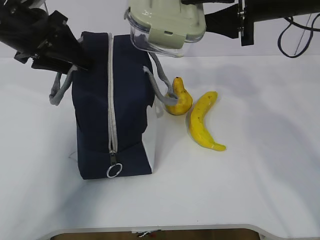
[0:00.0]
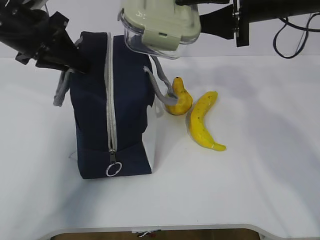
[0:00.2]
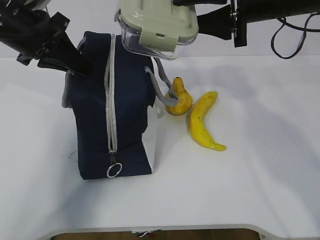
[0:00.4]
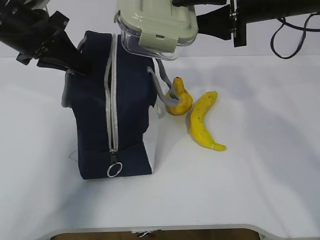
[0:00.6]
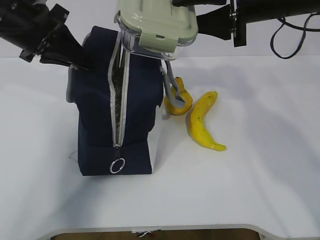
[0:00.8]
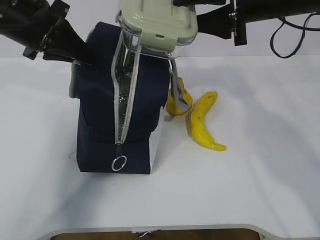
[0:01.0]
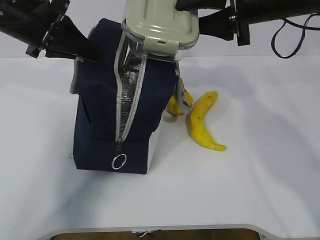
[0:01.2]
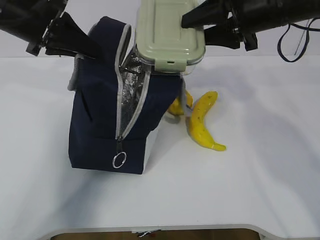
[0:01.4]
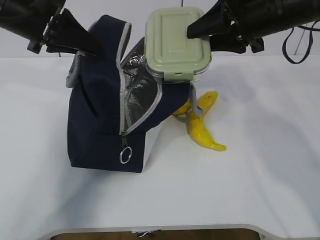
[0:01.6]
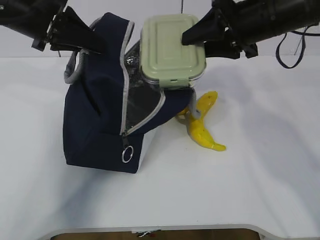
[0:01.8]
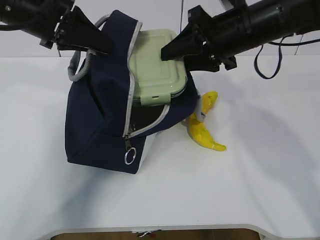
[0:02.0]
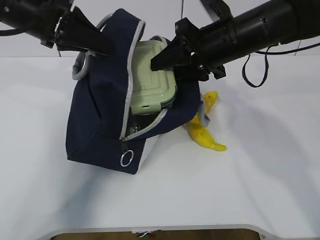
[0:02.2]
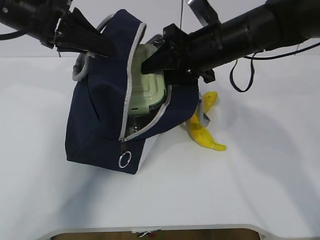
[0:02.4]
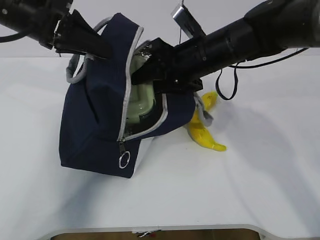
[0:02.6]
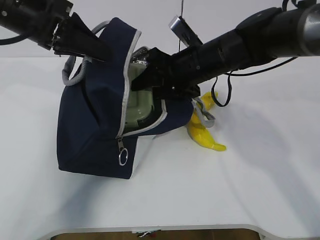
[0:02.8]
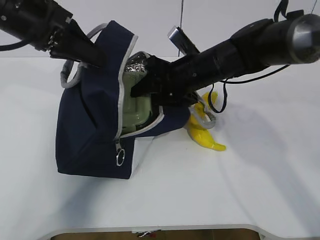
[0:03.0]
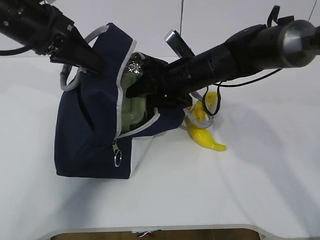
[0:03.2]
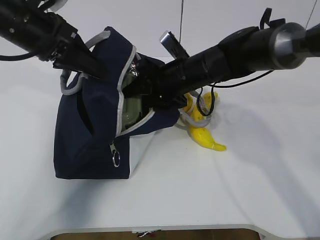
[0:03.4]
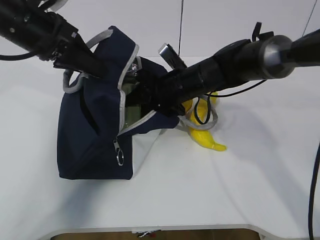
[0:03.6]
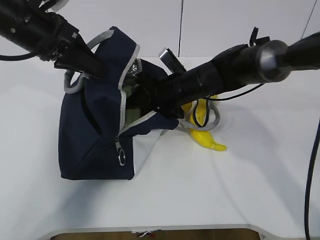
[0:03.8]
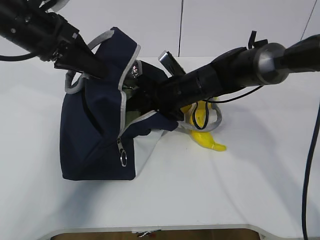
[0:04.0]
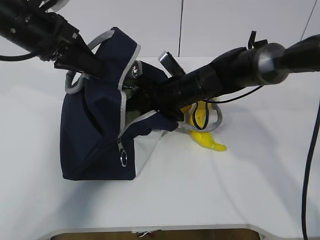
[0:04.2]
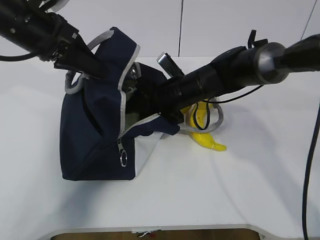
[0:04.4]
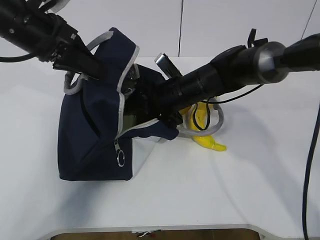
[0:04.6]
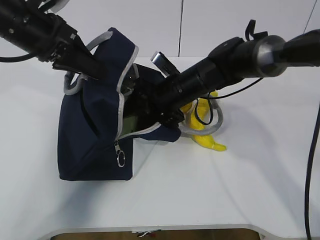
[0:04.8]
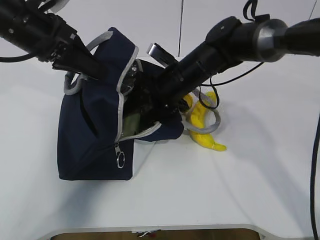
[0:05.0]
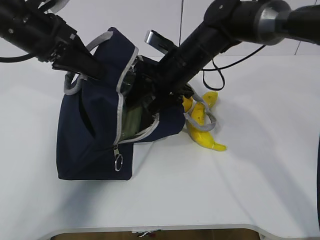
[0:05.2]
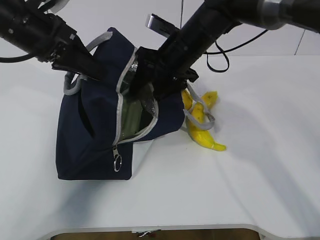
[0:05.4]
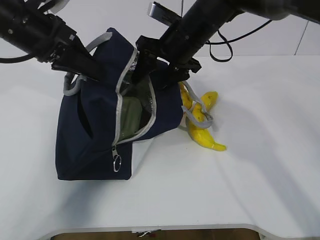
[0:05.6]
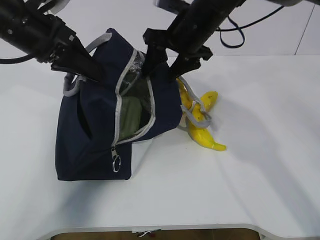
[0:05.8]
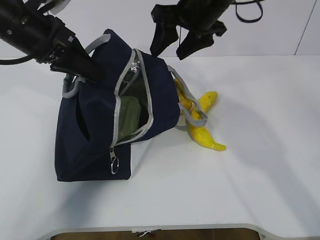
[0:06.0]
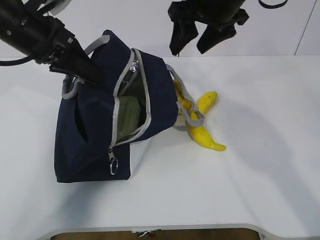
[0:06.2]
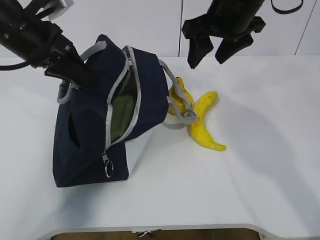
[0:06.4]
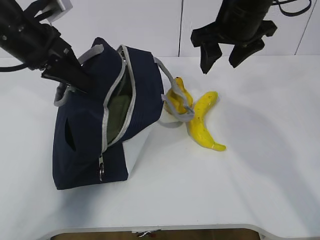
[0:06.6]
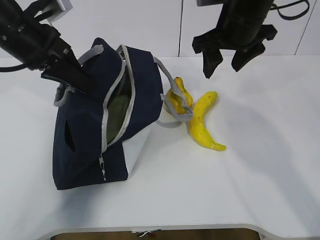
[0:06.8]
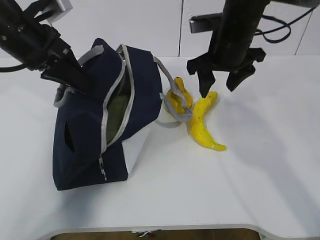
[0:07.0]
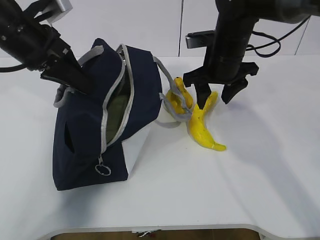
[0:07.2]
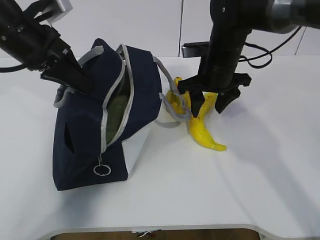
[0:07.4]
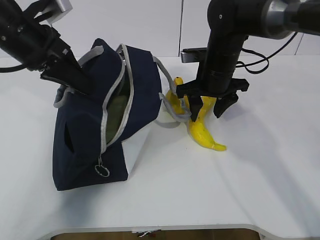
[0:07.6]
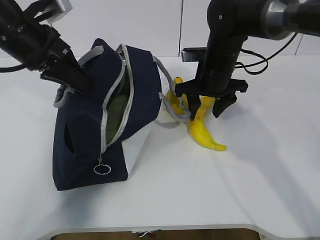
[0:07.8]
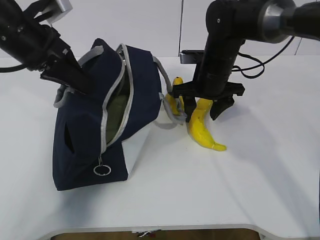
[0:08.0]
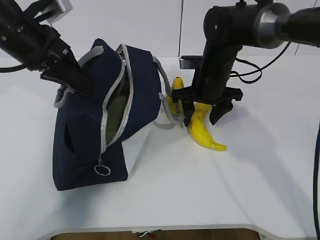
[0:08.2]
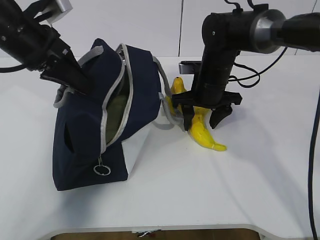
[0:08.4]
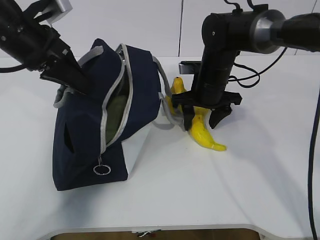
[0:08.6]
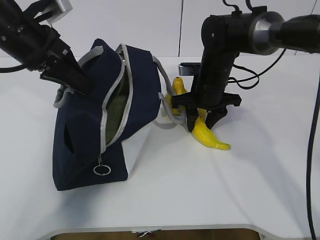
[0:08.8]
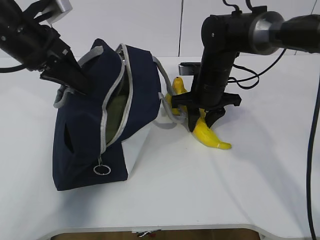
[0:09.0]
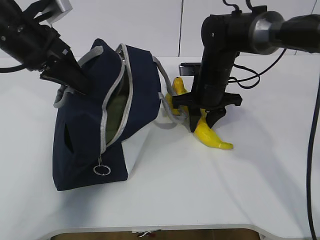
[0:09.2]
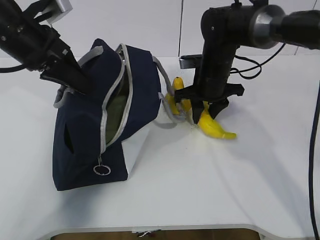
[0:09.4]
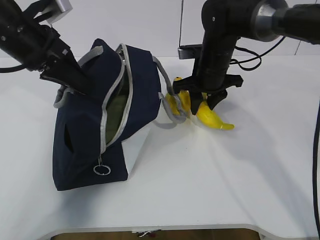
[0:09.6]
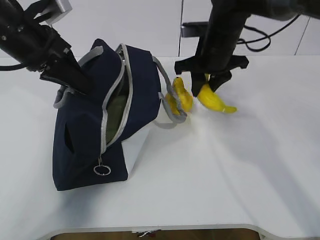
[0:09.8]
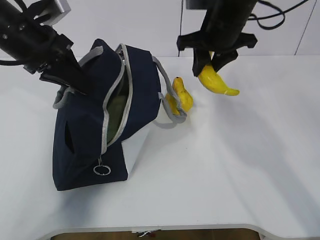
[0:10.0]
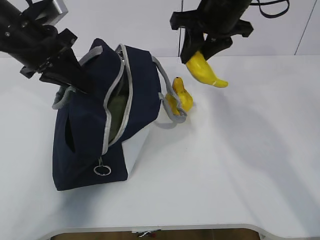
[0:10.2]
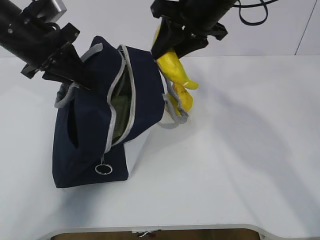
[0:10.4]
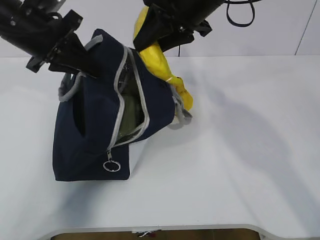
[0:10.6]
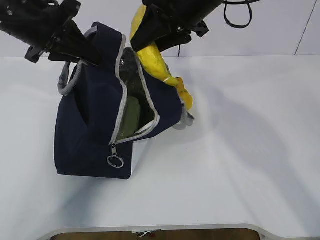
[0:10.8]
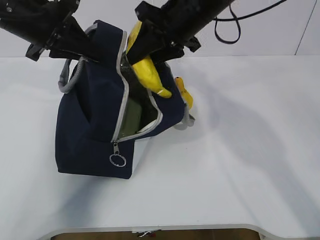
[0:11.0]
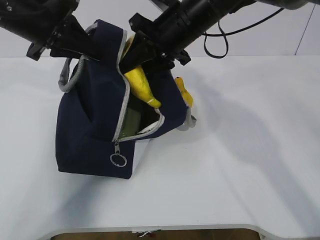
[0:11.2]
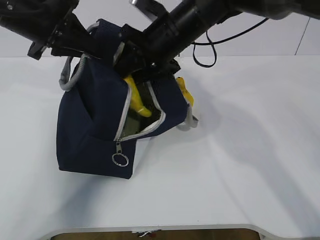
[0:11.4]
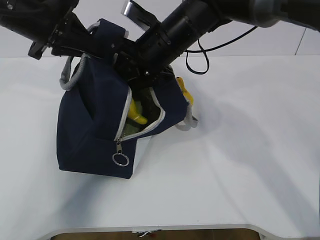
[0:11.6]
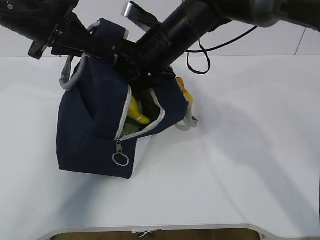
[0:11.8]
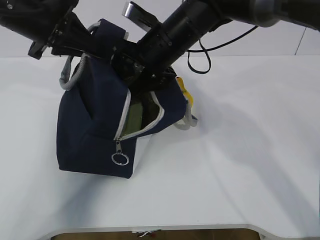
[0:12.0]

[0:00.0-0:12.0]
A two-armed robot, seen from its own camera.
Step, 0:01.6 to 0:04.8: Grab the banana with your right hand.
Step, 0:05.0 to 0:07.2: Place it into the bag with your right hand.
Step, 0:07.4 to 0:10.2: Grab the pear with your right hand.
0:00.0 to 0:01.6: The left gripper closes its fingers.
0:01.6 to 0:03.0: The right gripper travels downward and to the left by roughly 15 cm.
0:03.0 to 0:04.4: The right gripper moves downward, some 5 cm.
0:04.4 to 0:06.0: The right gripper goes approximately 15 cm upward.
0:06.0 to 0:07.6: The right gripper travels downward by approximately 10 cm.
0:07.6 to 0:09.0: The grippers make only small movements.
0:09.0 to 0:10.4: The right gripper heads upward, covering approximately 15 cm.
0:10.4 to 0:12.0: The right gripper is displaced downward and to the left by approximately 10 cm, and opens.

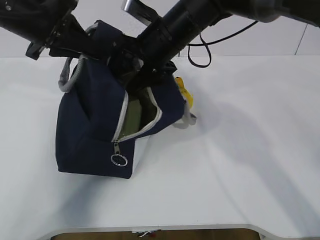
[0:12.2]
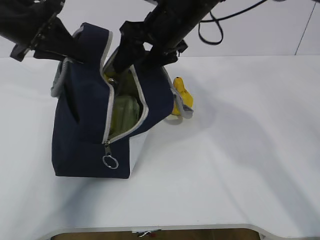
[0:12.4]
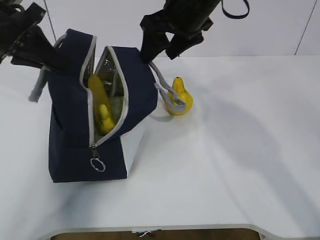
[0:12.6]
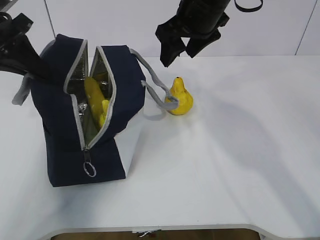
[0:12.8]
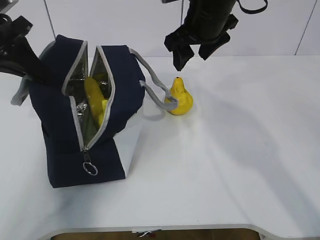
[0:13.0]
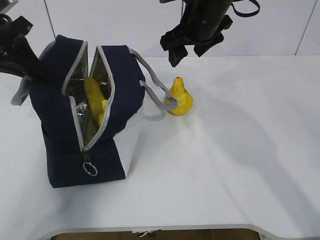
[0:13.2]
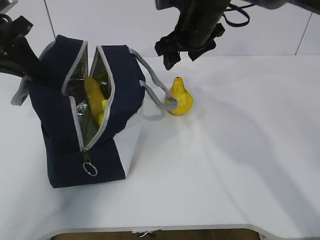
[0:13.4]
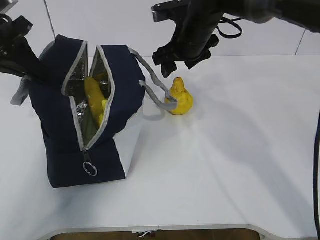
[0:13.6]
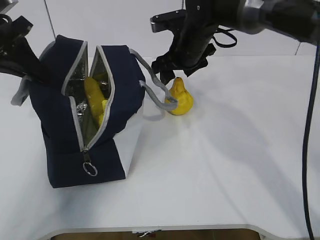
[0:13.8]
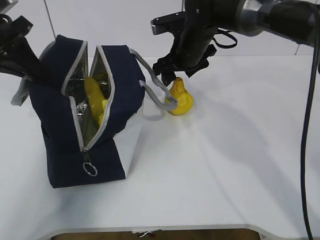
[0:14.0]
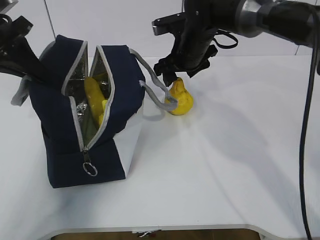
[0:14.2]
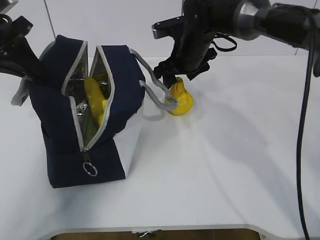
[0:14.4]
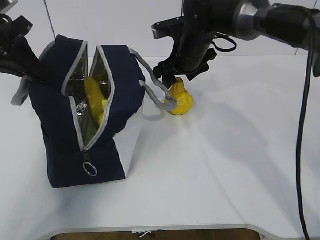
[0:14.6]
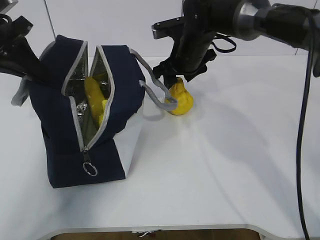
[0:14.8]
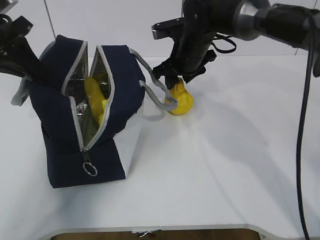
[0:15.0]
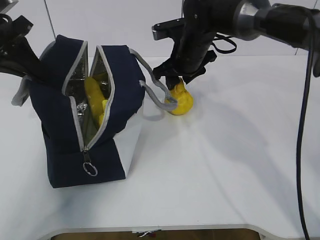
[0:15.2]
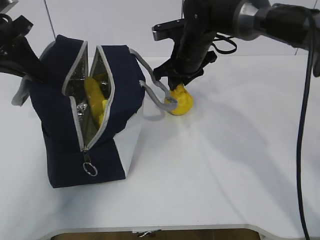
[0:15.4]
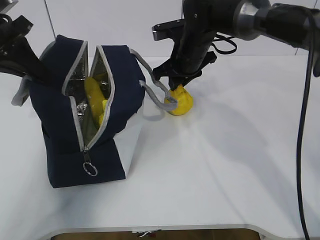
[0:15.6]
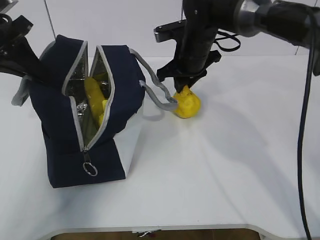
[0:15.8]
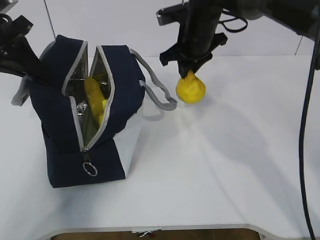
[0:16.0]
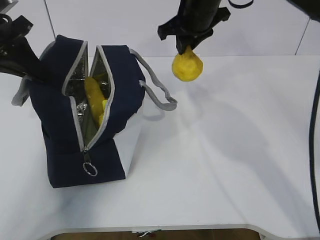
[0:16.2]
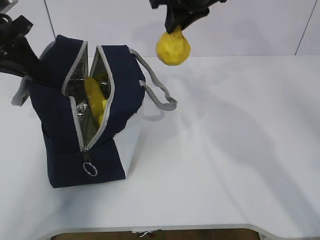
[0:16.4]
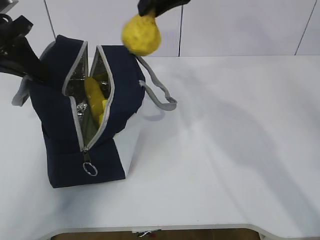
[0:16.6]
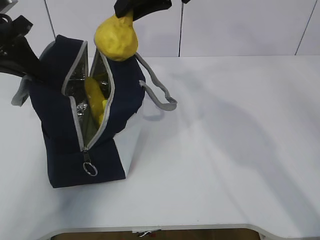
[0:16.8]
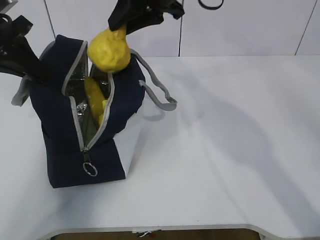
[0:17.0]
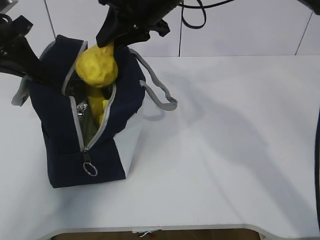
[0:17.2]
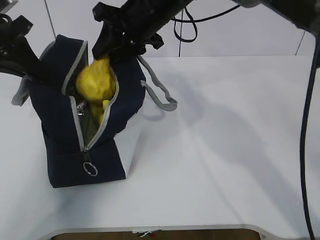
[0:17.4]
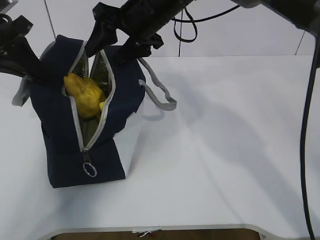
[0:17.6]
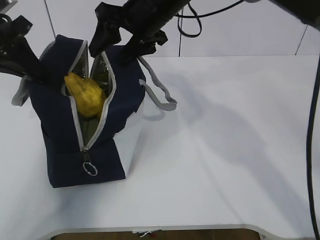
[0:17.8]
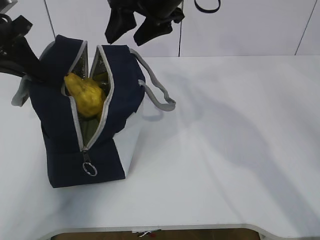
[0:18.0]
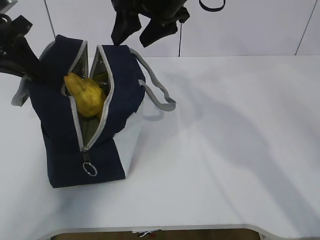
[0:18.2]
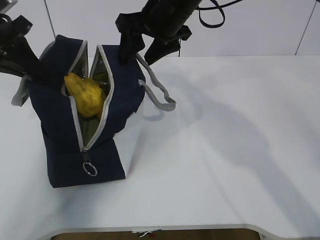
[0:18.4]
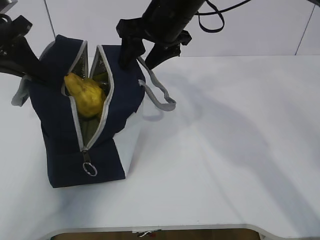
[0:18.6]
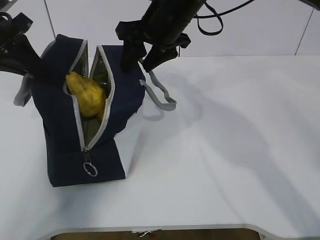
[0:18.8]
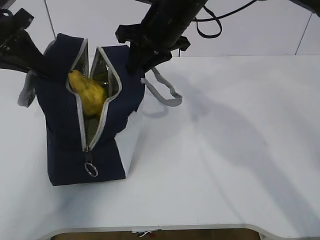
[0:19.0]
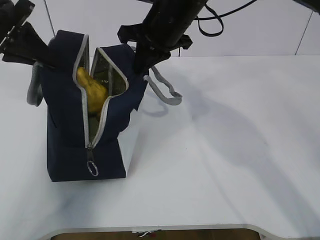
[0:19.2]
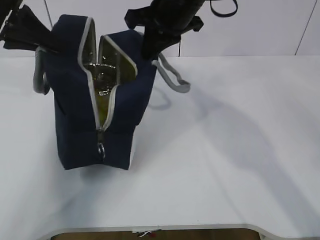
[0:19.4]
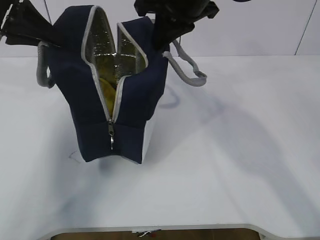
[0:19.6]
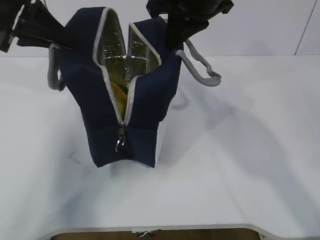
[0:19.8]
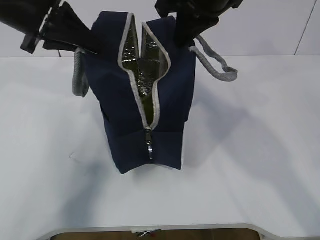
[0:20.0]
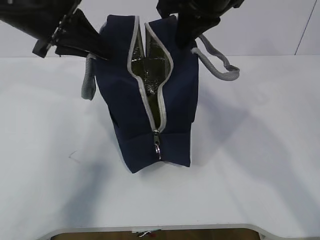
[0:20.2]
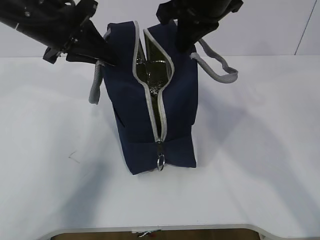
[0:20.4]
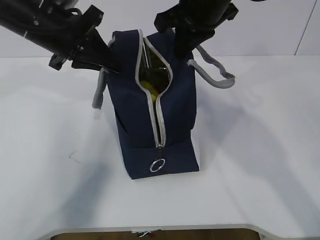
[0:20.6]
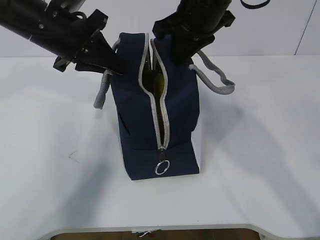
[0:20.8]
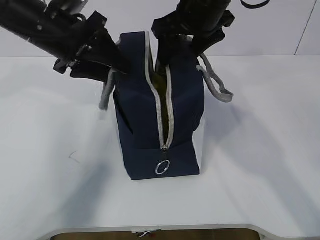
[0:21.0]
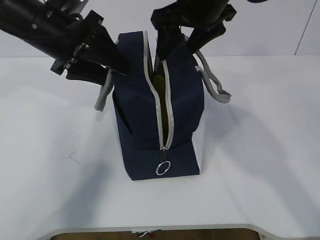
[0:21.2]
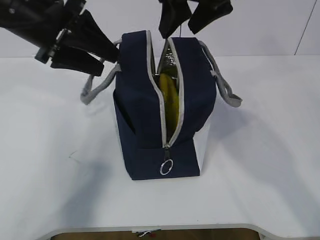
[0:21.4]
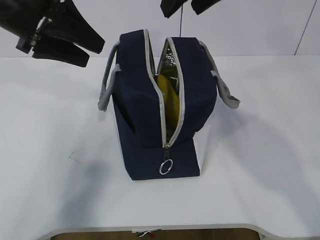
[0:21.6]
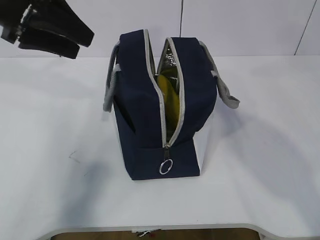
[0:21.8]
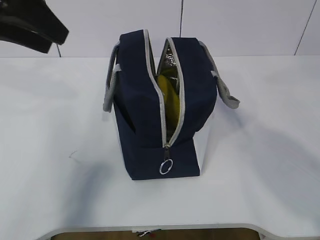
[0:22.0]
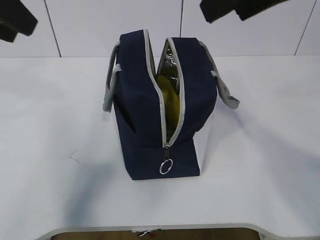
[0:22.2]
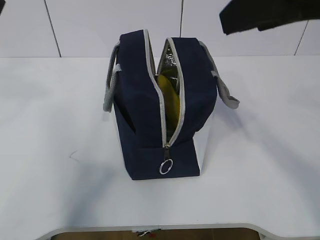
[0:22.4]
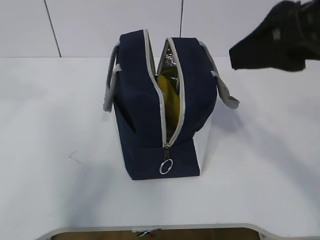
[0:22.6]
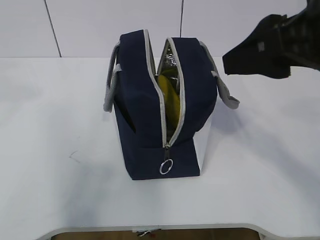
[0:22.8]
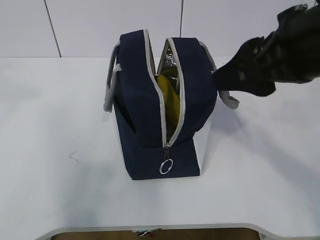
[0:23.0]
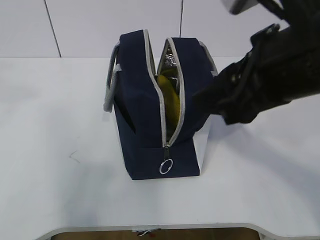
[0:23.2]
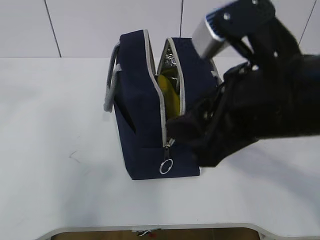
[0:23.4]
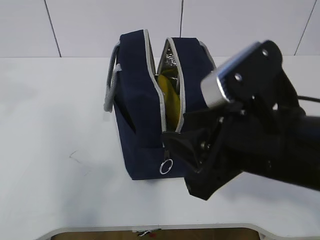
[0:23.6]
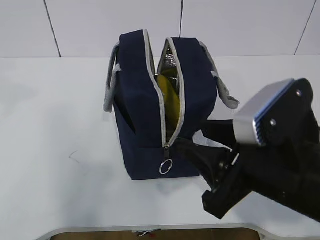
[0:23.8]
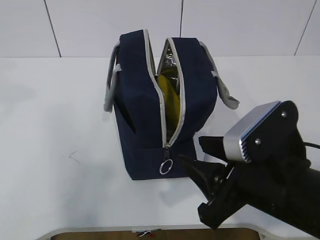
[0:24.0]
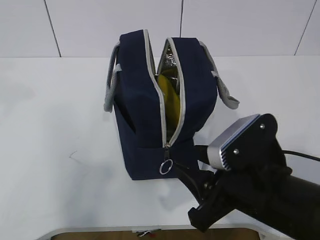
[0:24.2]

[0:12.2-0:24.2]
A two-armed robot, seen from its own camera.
Step, 0:12.2 to 0:13.2: Grab the lunch bag with your right hand.
Step, 0:13.4 to 0:14.6: Move the lunch bag to the right.
0:12.2 to 0:13.8: The right gripper goes approximately 5 cm forward; the left gripper is displaced to the left by approximately 5 cm.
0:13.8 to 0:15.2: The grippers stay close to where they were, moving slightly.
0:15.2 to 0:16.6: The right gripper moves upward, about 15 cm.
0:16.6 to 0:18.2: The right gripper opens up.
0:18.2 to 0:19.8: The right gripper shifts by approximately 5 cm, and closes its fingers; the left gripper moves roughly 5 cm.
0:19.8 to 0:21.2: The left gripper moves to the right, approximately 5 cm, and opens its fingers, while the right gripper opens.
0:21.2 to 0:22.6: The right gripper shifts about 20 cm backward and to the right. The left gripper moves upward, backward and to the left, roughly 25 cm.
0:22.6 to 0:24.2: The right gripper heads downward, covering about 20 cm.
